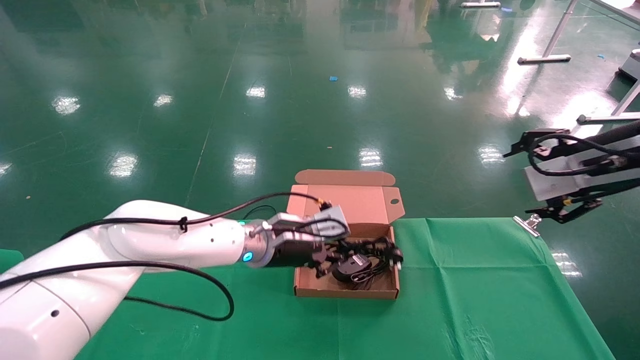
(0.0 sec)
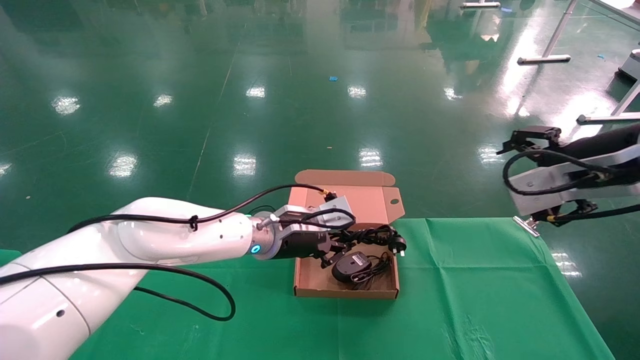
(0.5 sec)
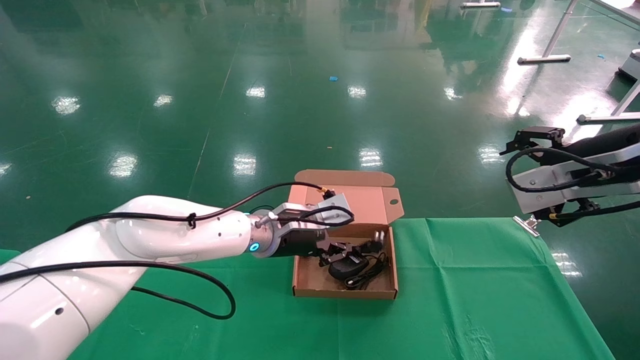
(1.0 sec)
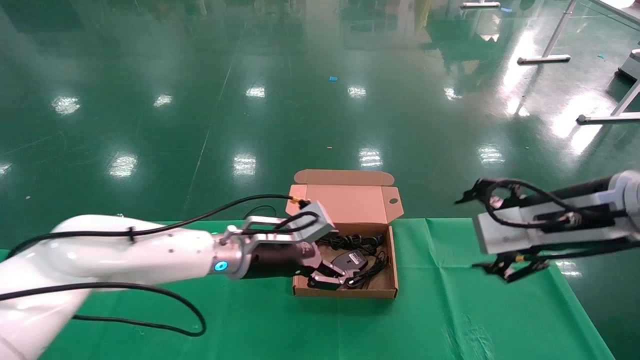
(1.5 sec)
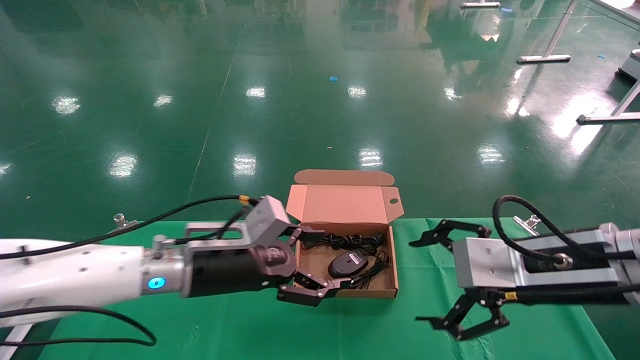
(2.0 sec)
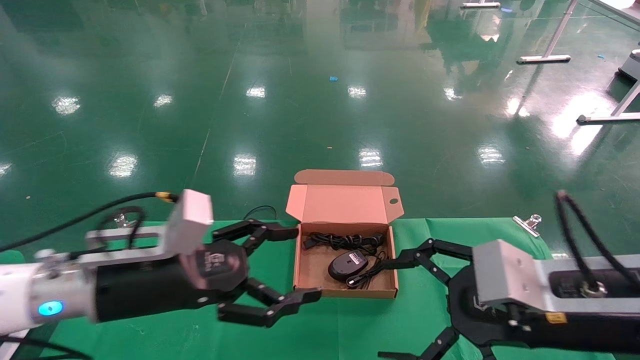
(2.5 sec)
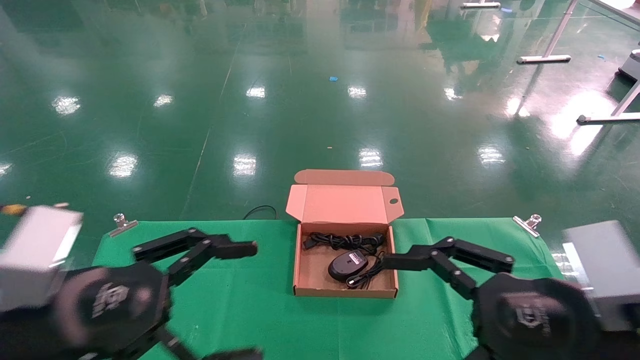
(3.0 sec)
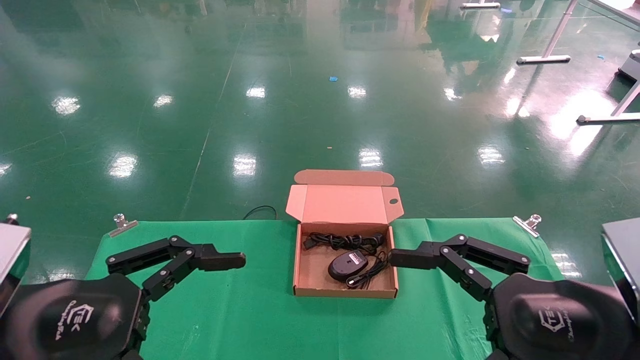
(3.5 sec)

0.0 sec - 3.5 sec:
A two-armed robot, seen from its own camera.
0.0 sec - 2.0 sec: The left gripper is displaced backward and to the left by approximately 10 cm, and opens, while the right gripper heads downward, to the left and backward, covering some 15 cm.
2.0 sec - 3.5 sec: The right gripper moves backward, roughly 10 cm. Meanwhile the left gripper heads backward and to the left, covering some 20 cm.

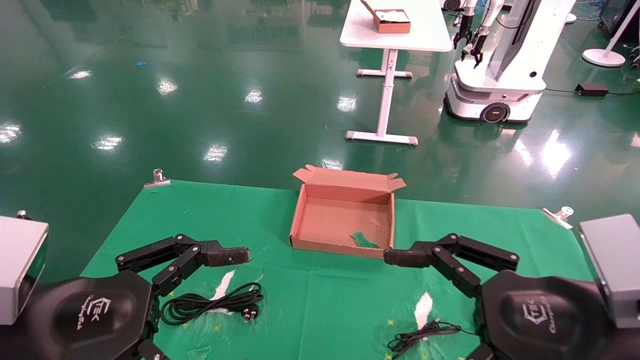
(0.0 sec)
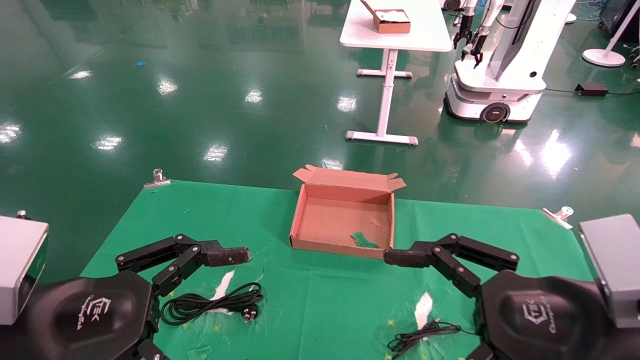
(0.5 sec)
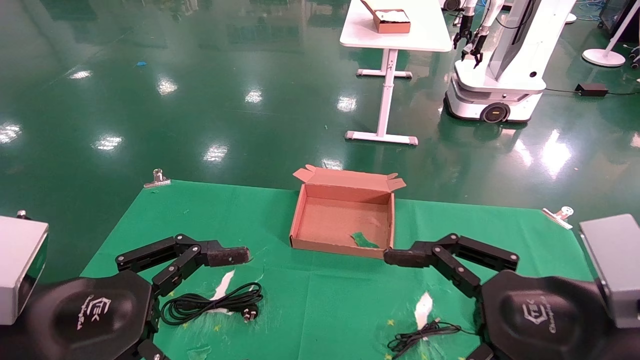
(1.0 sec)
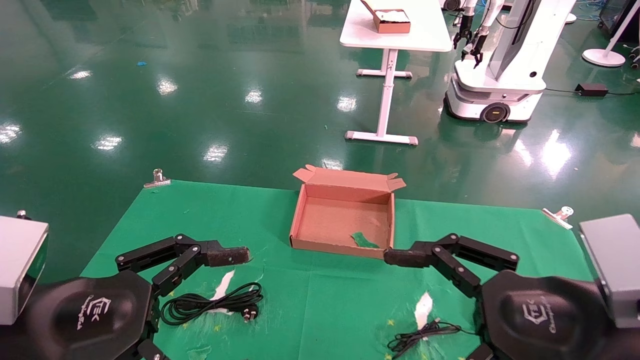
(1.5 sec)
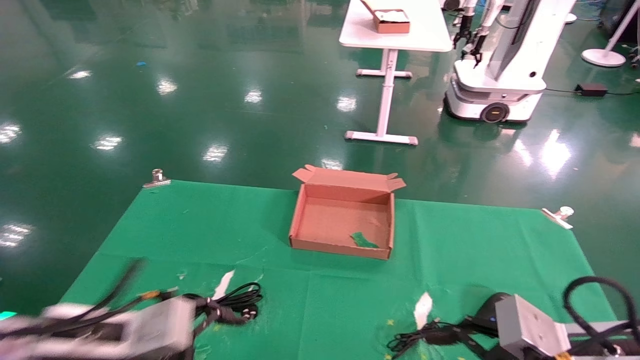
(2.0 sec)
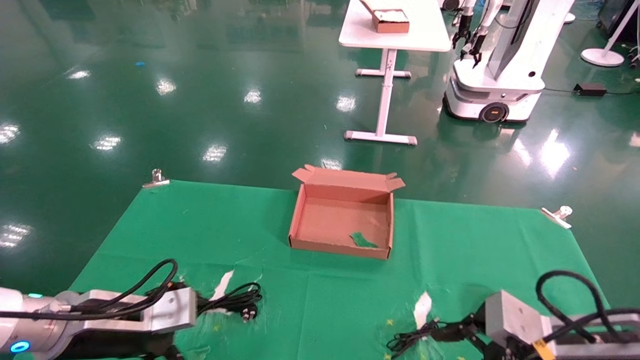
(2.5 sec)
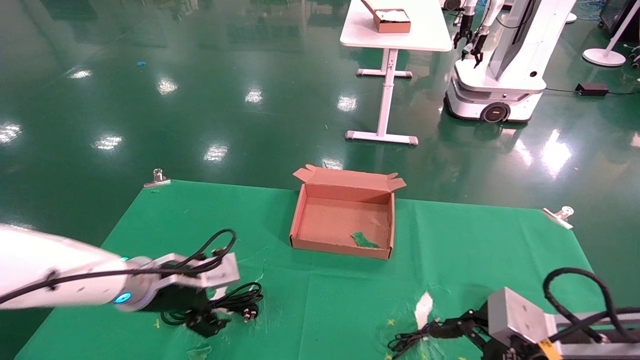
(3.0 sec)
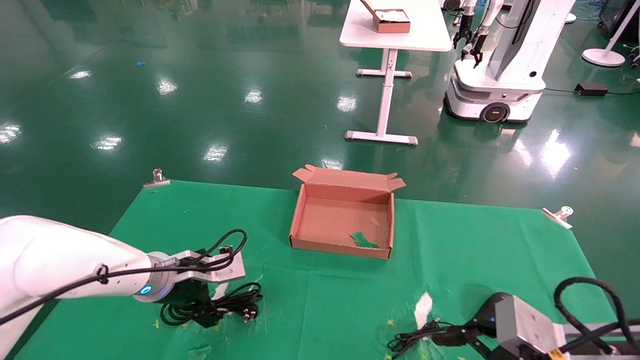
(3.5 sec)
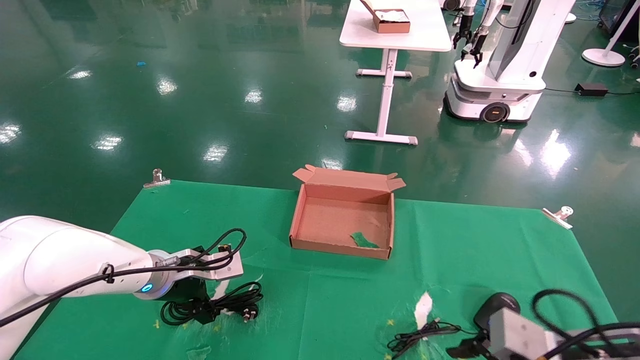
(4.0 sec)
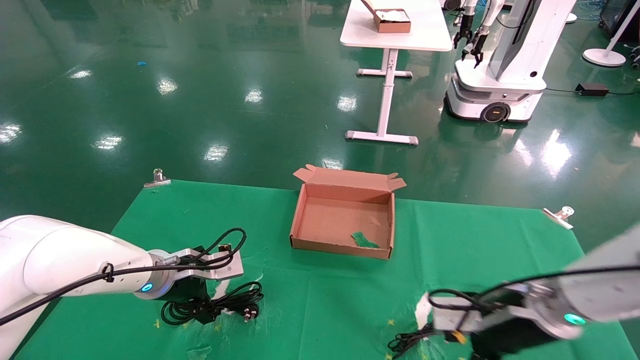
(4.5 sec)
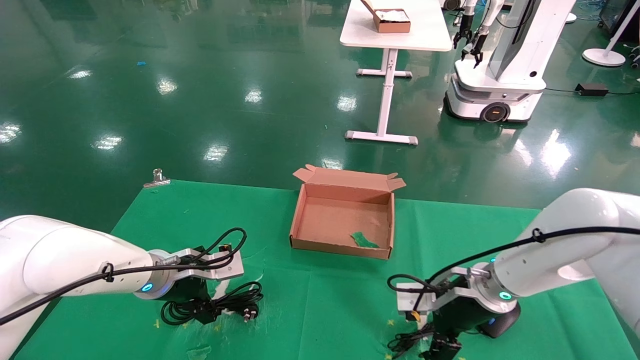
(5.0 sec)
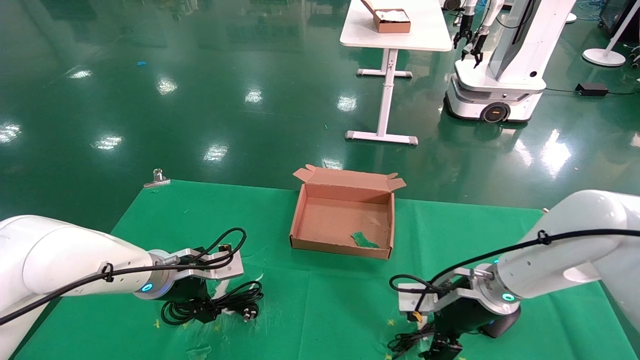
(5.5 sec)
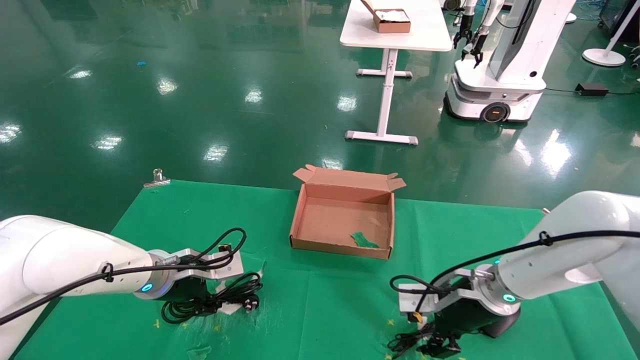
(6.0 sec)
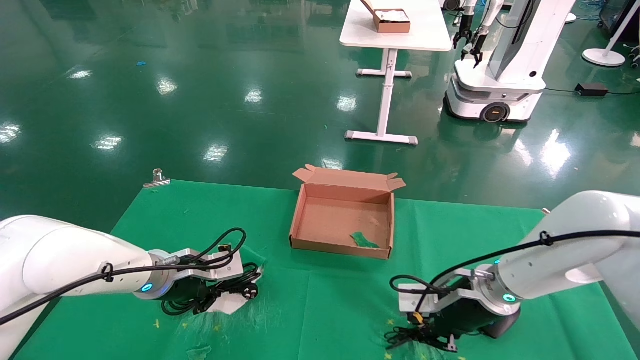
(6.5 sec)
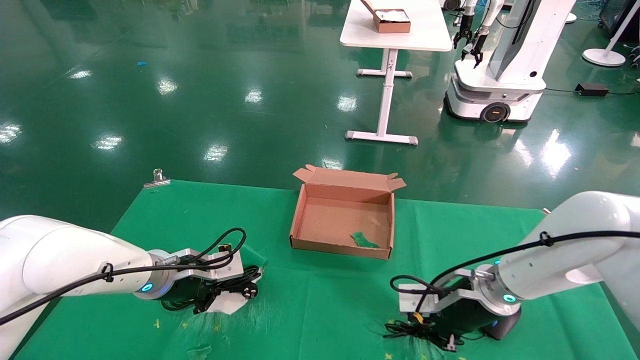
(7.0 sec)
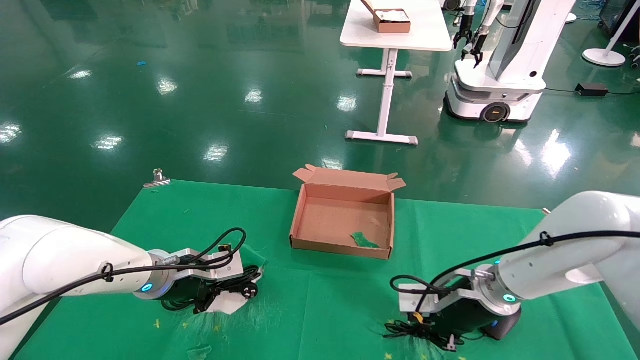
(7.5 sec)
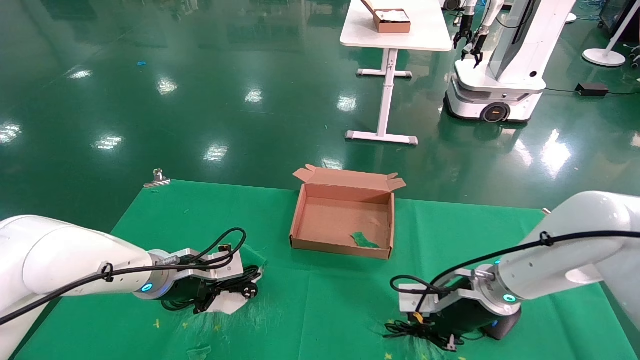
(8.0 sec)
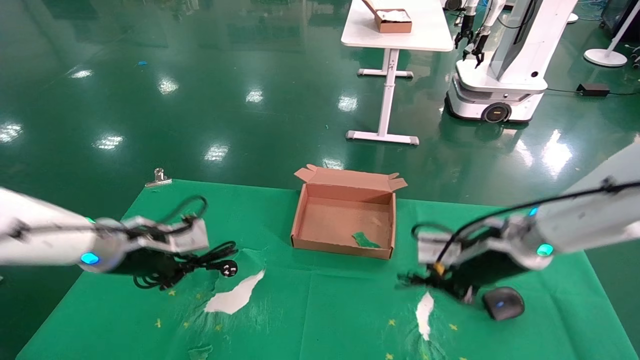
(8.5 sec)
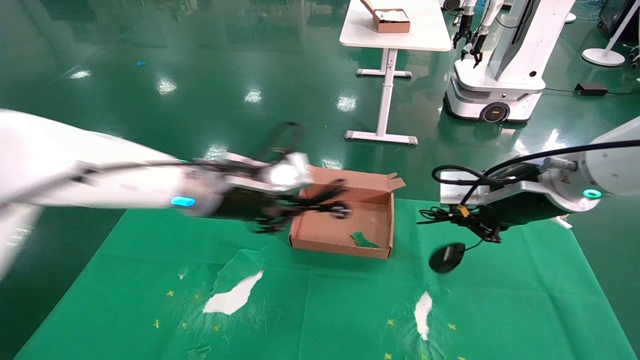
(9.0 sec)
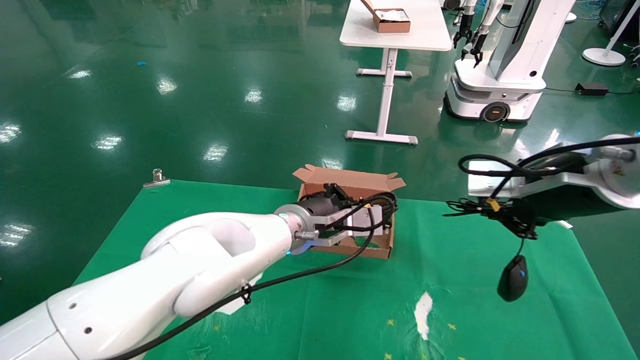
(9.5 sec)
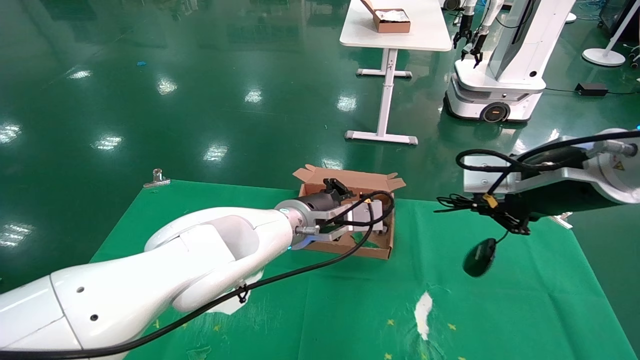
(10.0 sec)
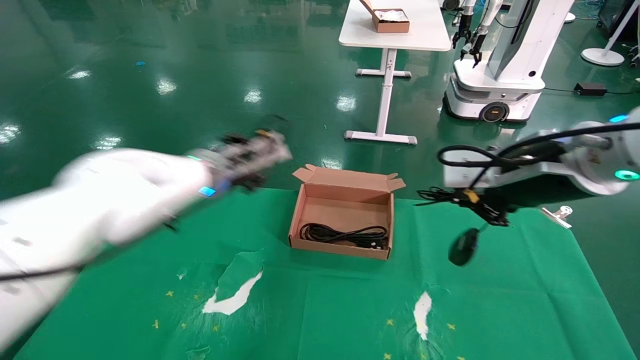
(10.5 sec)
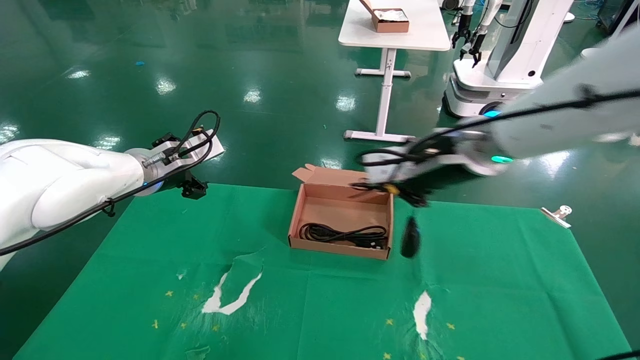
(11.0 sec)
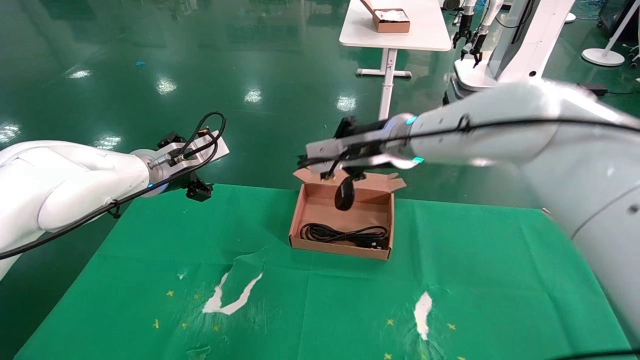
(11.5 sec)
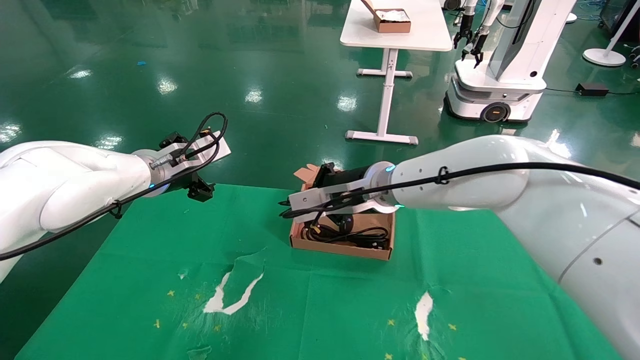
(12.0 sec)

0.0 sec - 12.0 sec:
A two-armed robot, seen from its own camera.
Step, 2.5 sec - 9.0 sec: Grab and lift both the mouse and power cord from the accessory packaging area at the same time.
0.0 sec - 2.0 sec: The right gripper heads downward, covering approximately 5 cm. The left gripper shifts about 10 cm forward and downward.
2.0 sec - 4.0 sec: The left gripper heads forward, covering roughly 15 cm.
4.0 sec - 6.0 sec: The right gripper goes some 15 cm forward and to the left.
6.0 sec - 8.0 sec: The right gripper closes its fingers. Meanwhile the left gripper closes.
8.0 sec - 10.0 sec: The right gripper heads upward and backward, covering approximately 25 cm. Meanwhile the left gripper is displaced to the right by roughly 20 cm.
10.0 sec - 12.0 sec: The left gripper travels to the left by some 20 cm, and opens. The right gripper travels to the left and forward by about 25 cm.

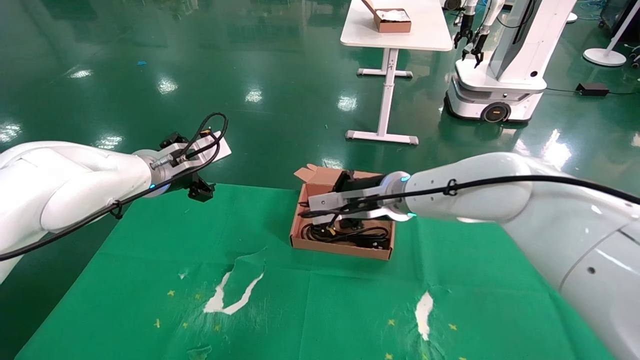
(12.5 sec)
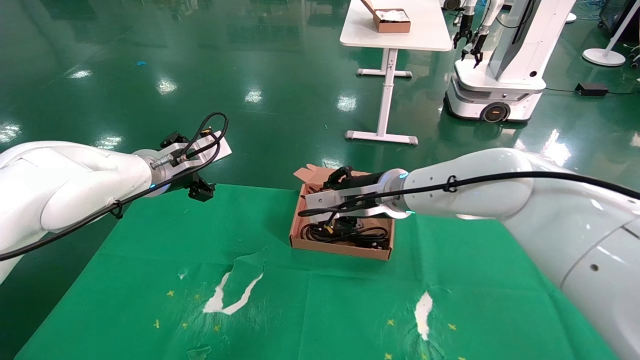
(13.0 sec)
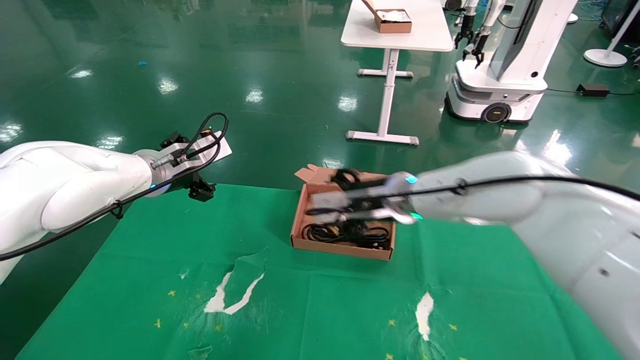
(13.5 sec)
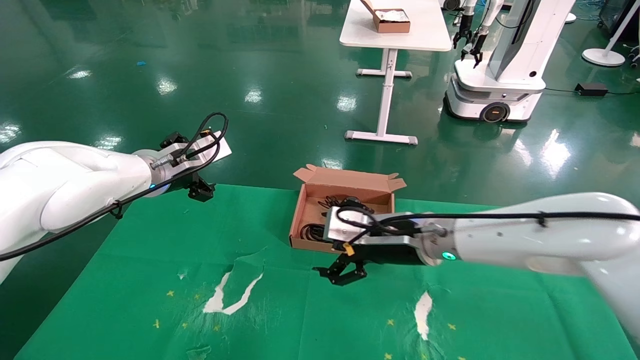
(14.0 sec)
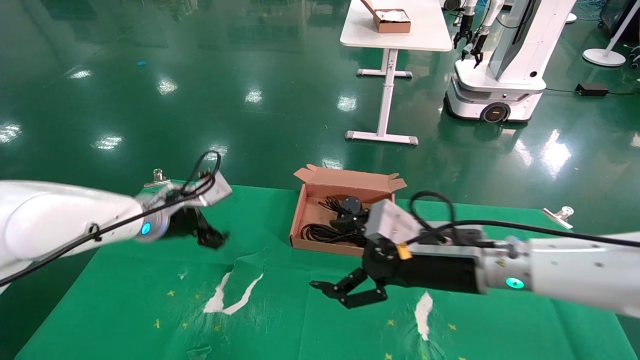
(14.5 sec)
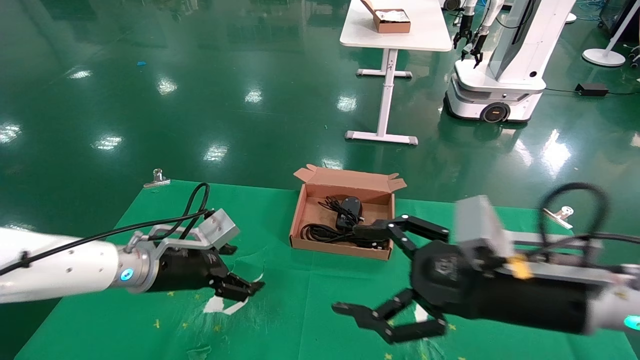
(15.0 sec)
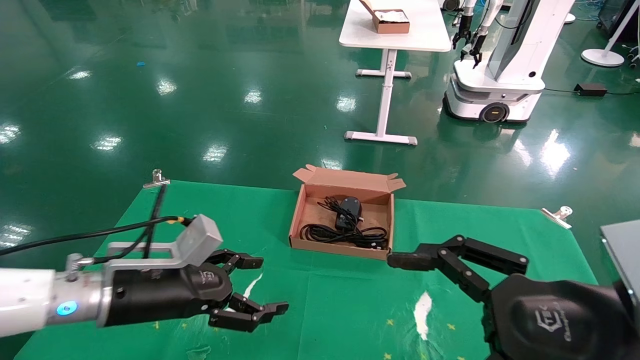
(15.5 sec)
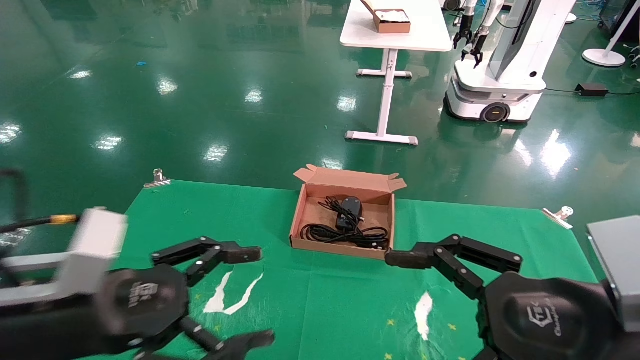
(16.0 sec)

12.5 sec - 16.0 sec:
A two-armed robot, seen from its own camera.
12.5 sec - 14.5 sec: The left gripper heads downward, covering about 5 cm. Meanwhile the right gripper travels backward and to the right by approximately 15 cm, and opens its fingers.
14.5 sec - 16.0 sec: The left gripper shifts roughly 25 cm backward. The right gripper travels backward and to the right by some 20 cm.
